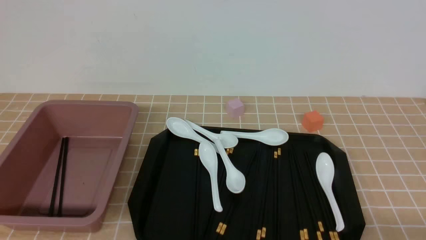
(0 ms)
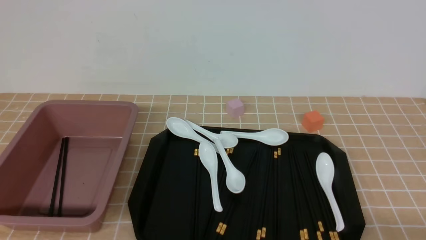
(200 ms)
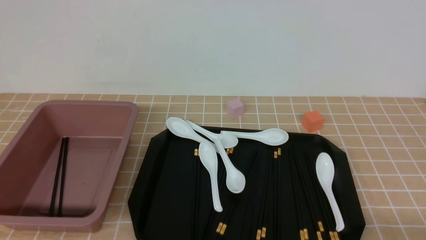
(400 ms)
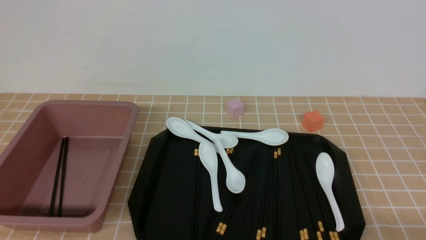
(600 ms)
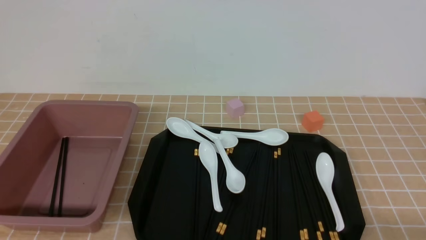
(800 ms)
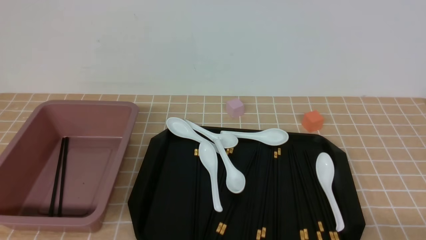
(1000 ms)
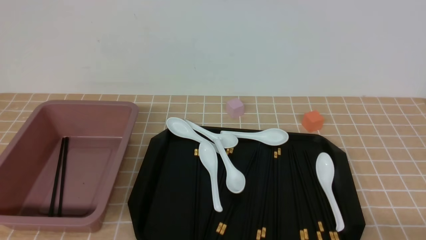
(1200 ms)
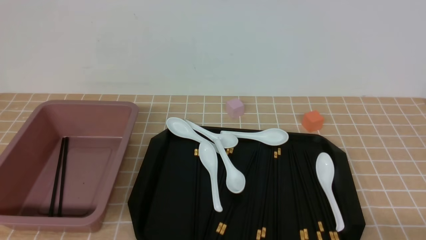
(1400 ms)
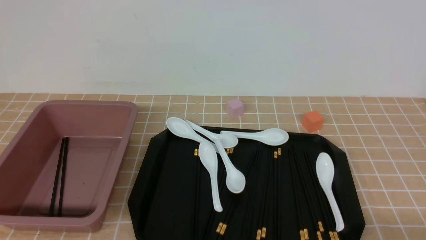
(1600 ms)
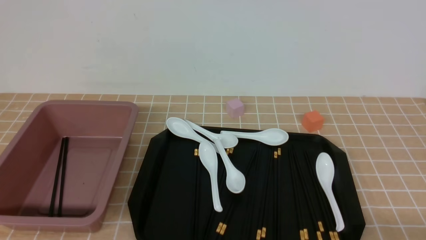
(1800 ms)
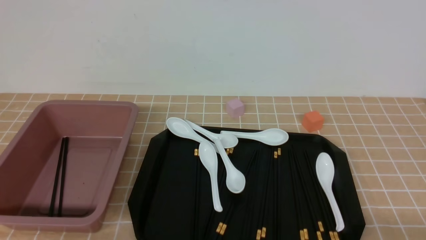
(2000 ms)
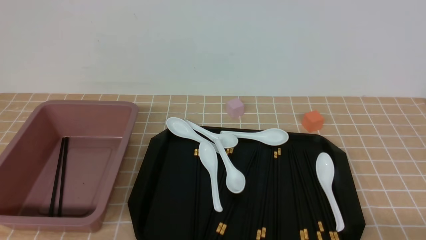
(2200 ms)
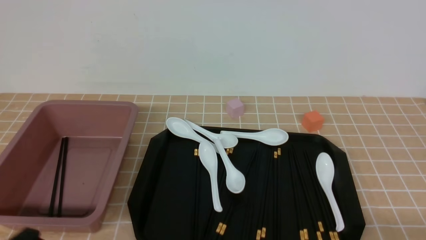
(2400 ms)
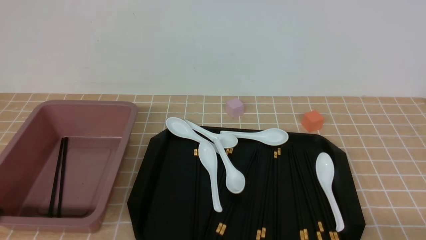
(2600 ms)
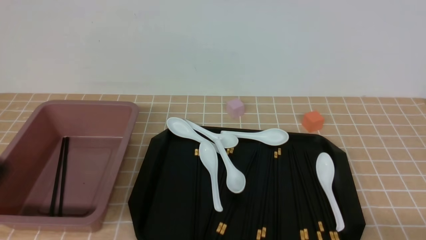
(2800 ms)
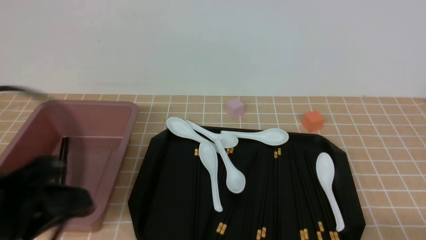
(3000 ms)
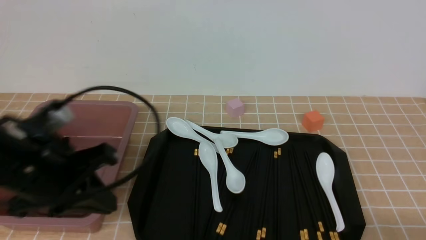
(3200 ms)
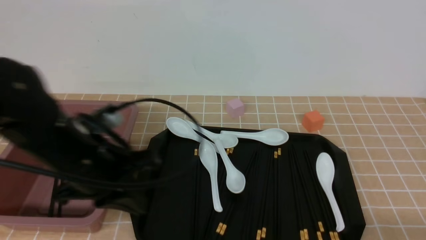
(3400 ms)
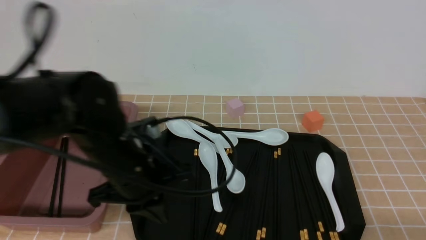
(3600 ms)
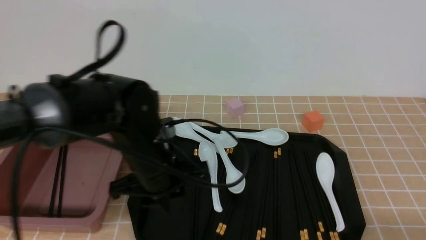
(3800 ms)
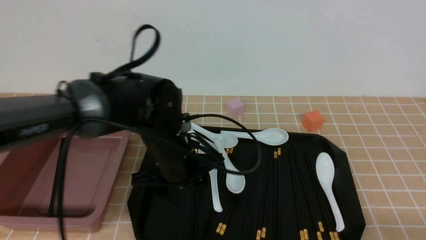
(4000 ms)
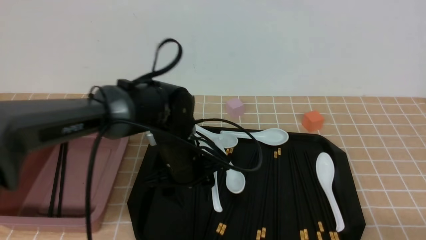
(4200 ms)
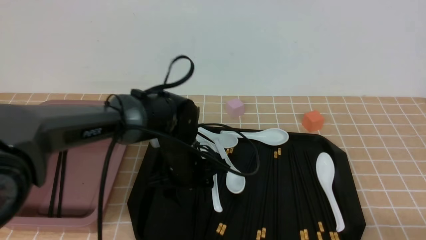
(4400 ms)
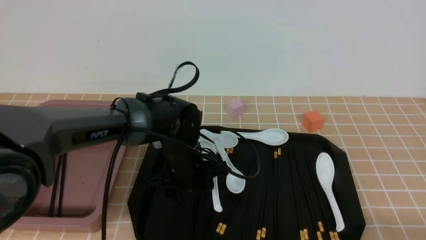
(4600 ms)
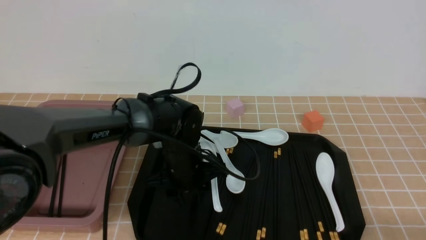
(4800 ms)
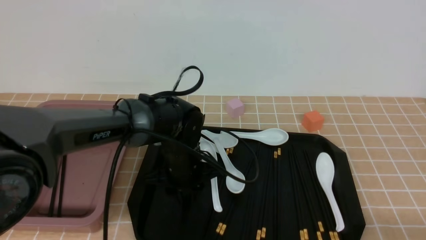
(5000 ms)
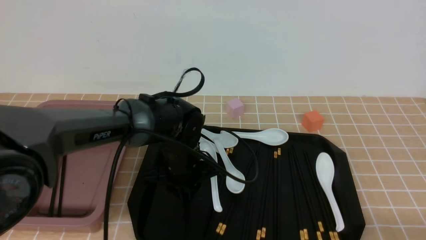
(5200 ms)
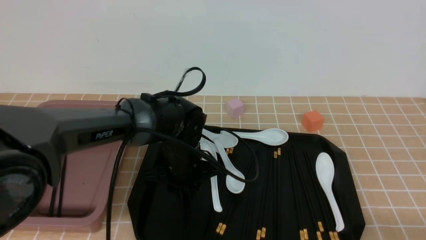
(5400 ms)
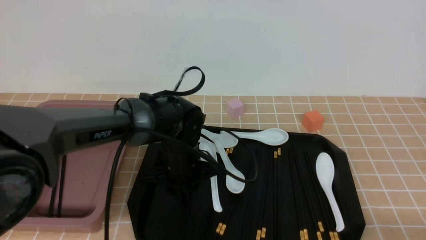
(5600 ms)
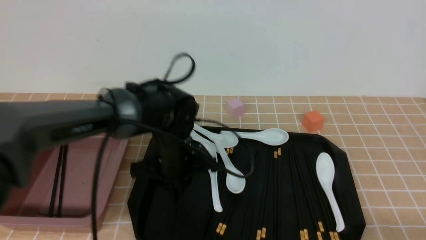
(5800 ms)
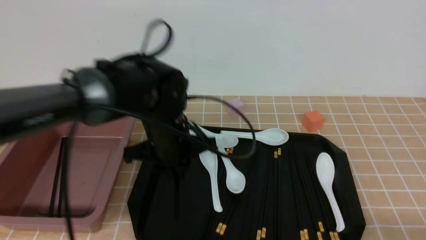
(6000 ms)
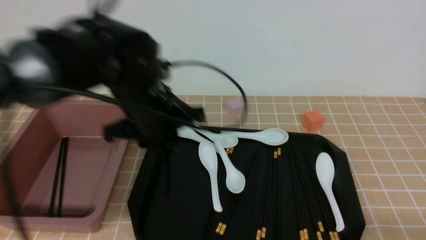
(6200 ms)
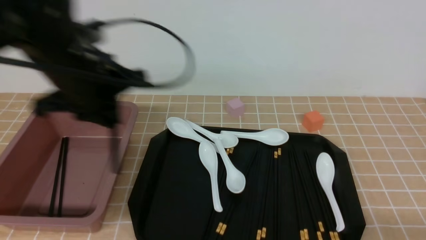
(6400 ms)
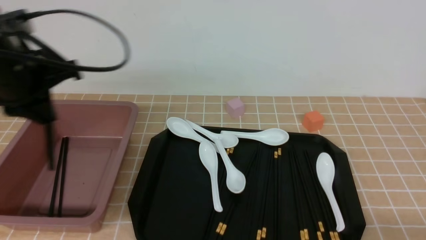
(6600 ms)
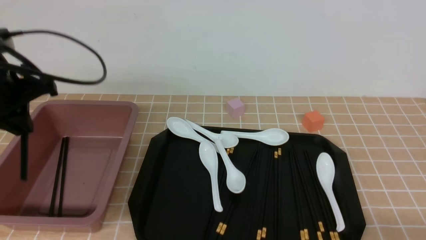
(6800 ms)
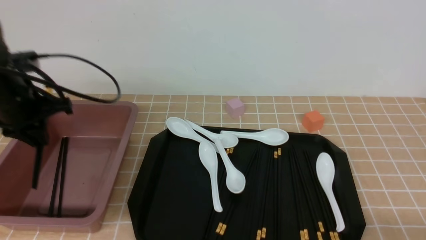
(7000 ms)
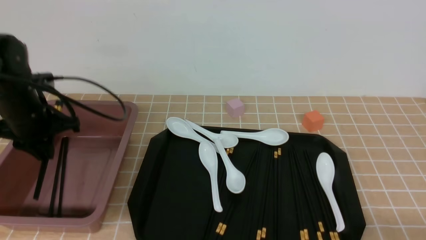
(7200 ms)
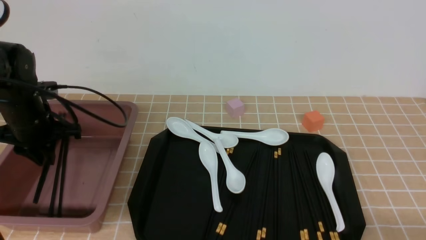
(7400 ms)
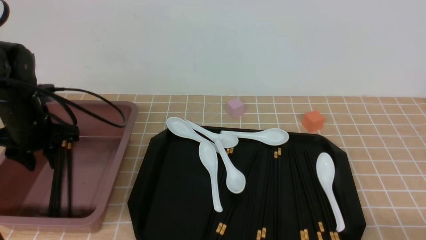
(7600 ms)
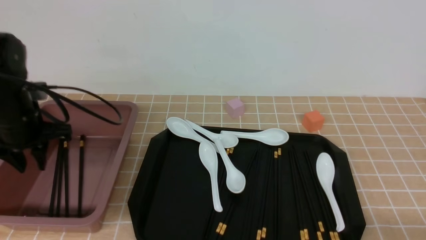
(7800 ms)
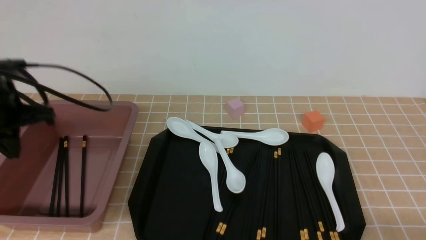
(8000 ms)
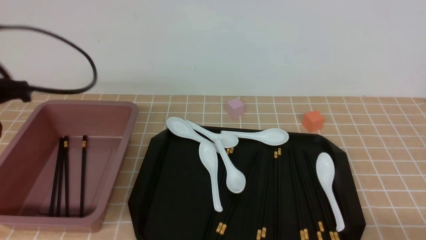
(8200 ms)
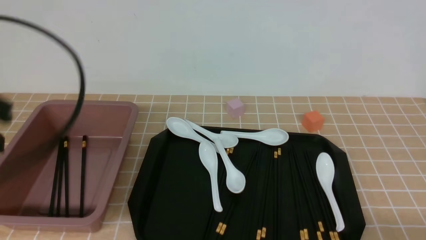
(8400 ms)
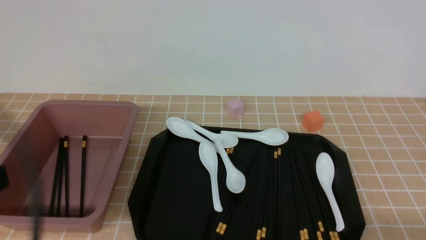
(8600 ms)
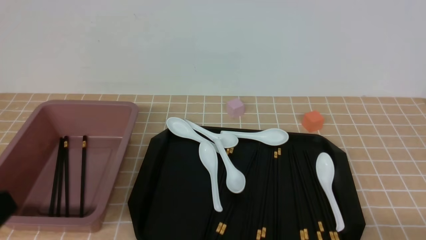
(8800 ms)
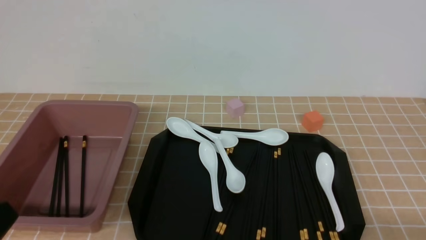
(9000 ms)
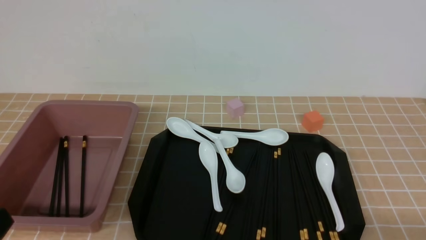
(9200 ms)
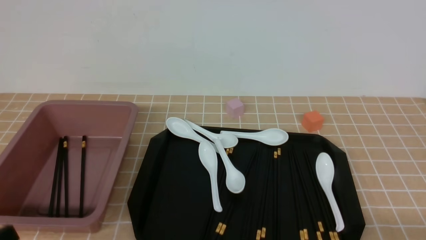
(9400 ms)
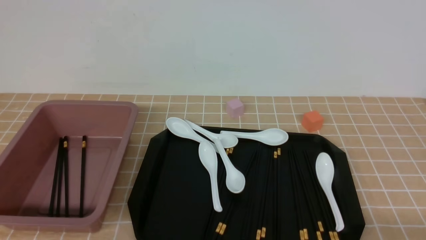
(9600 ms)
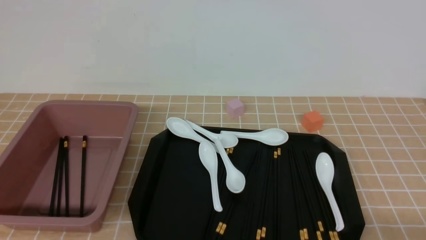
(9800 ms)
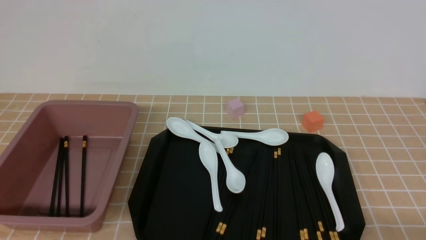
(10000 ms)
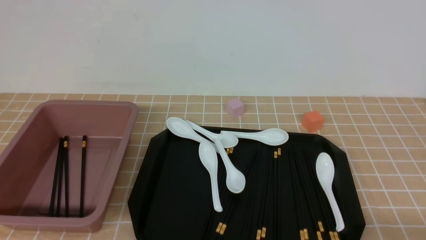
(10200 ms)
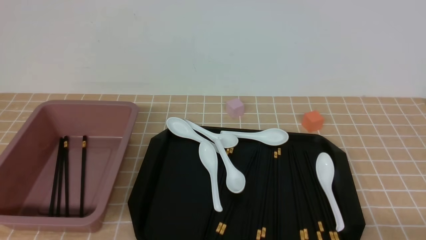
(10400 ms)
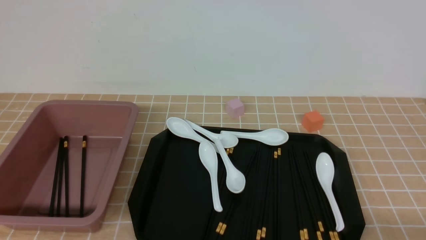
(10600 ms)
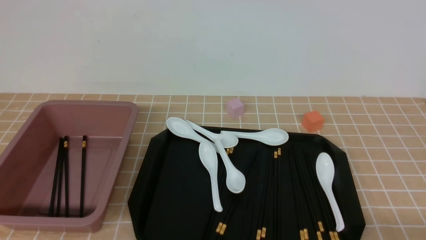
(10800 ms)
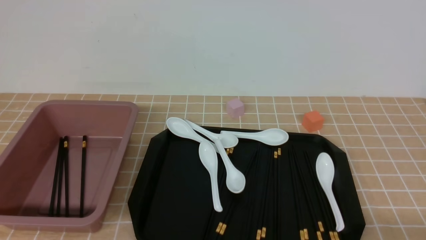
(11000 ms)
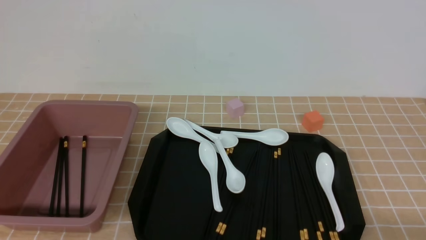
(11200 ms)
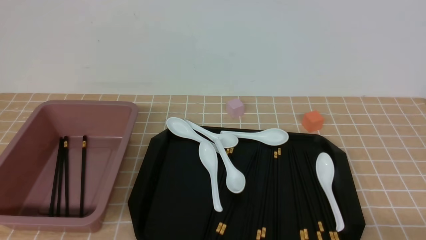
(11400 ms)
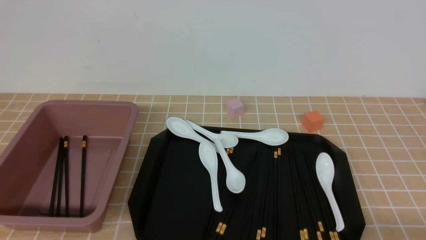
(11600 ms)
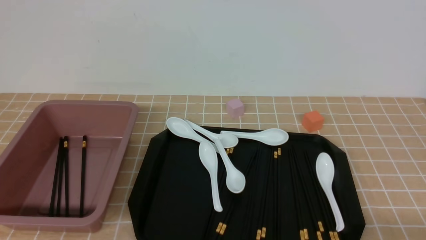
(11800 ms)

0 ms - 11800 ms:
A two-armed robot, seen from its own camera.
Step, 0 ms - 6000 ms: use the left arm to grab a pair of chopsticks.
Step, 6200 ms - 7800 ms: use the left arm to put the chopsticks into the lunch box.
0 ms - 1400 ms: Both grippers stay about where they are.
1400 ms - 3000 ms: The left gripper travels upward and forward by about 15 cm.
3000 ms - 4400 ms: The left gripper travels forward, to the right and downward by roughly 30 cm, and opens up.
4400 ms - 6000 ms: The left gripper travels upward by approximately 10 cm, and closes.
6000 ms - 7400 ms: The left gripper goes about 20 cm to the left.
7400 ms - 8800 ms: The left gripper goes some 30 cm backward, and closes.
10400 ms - 11800 ms: Both grippers stay about where they are.

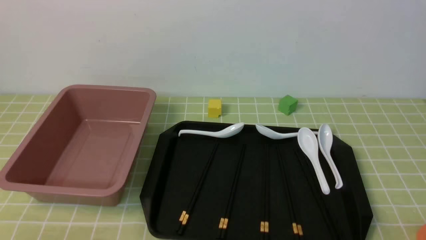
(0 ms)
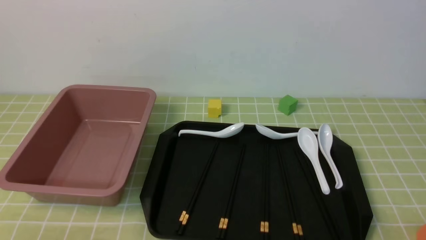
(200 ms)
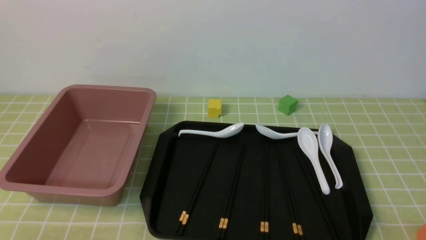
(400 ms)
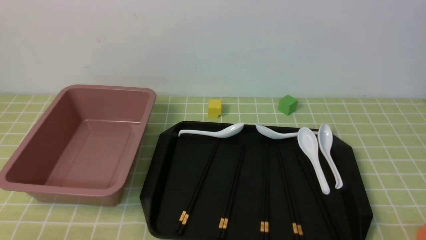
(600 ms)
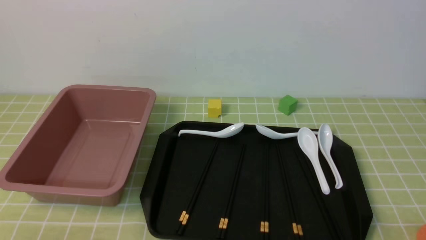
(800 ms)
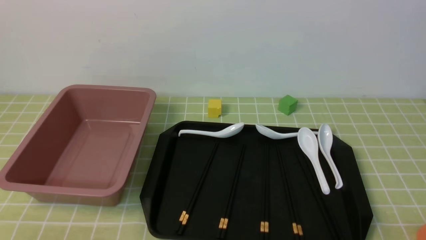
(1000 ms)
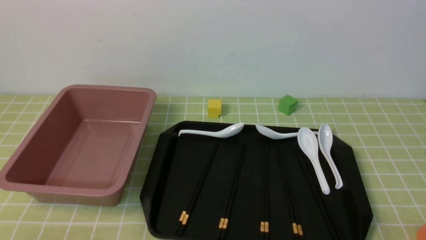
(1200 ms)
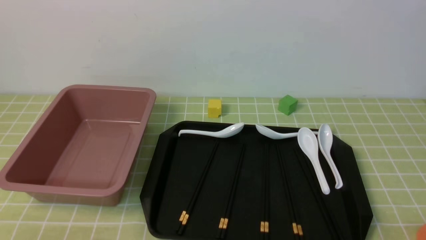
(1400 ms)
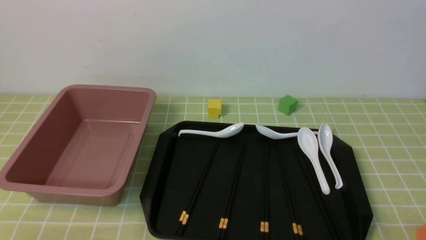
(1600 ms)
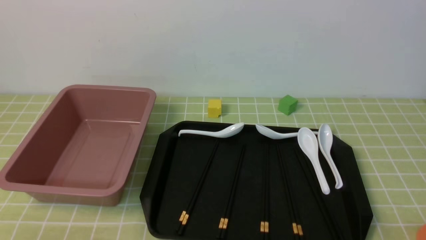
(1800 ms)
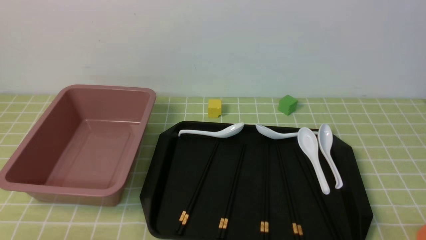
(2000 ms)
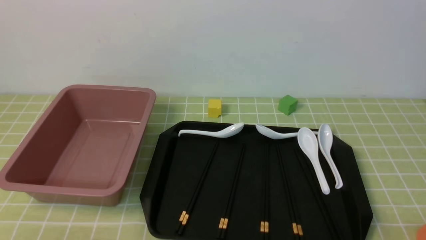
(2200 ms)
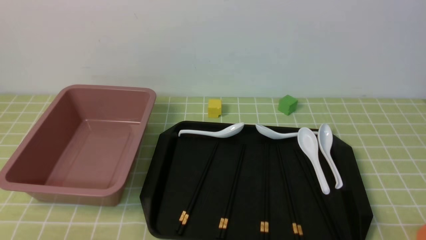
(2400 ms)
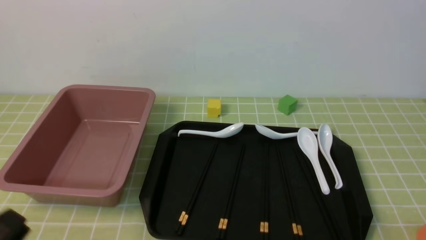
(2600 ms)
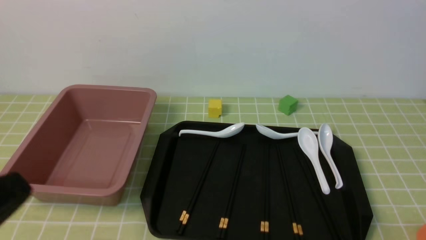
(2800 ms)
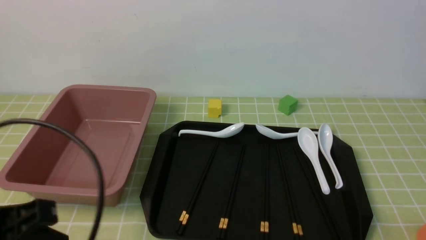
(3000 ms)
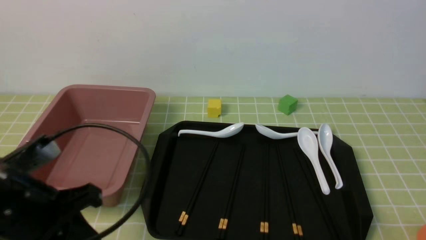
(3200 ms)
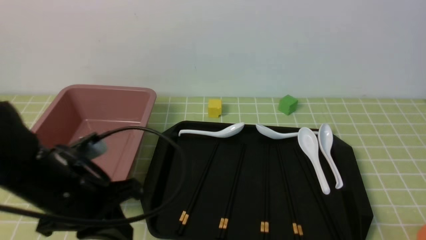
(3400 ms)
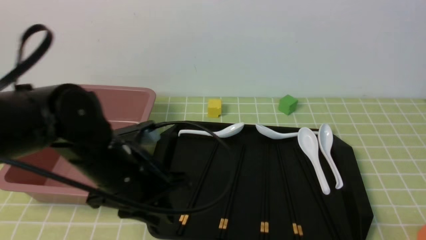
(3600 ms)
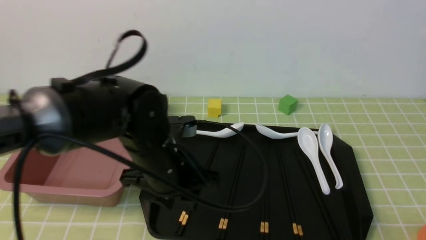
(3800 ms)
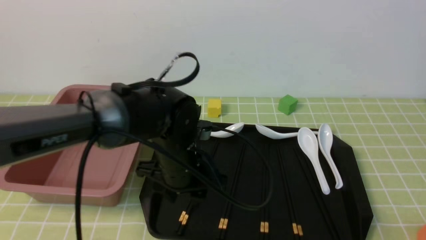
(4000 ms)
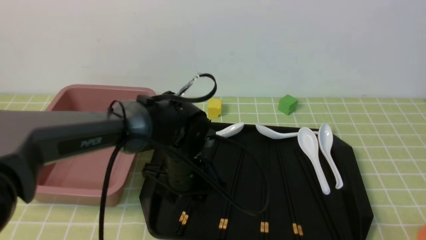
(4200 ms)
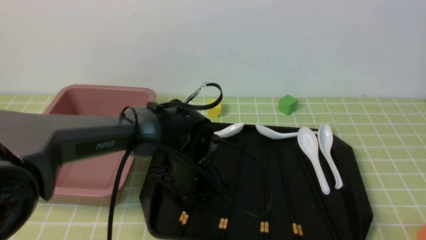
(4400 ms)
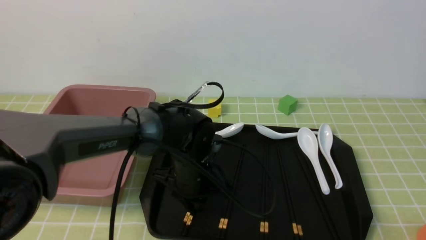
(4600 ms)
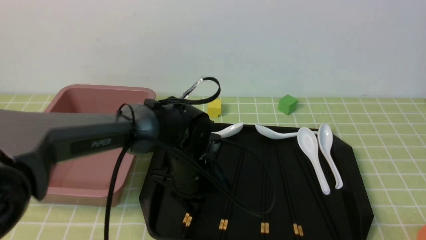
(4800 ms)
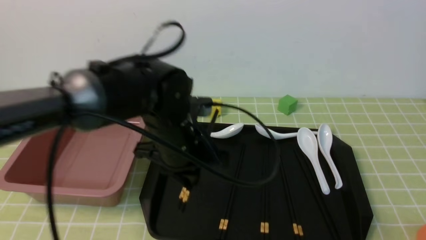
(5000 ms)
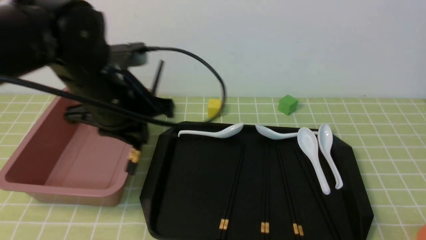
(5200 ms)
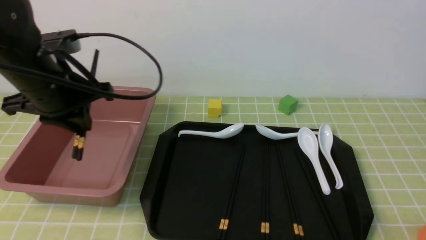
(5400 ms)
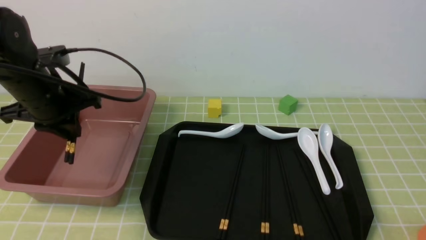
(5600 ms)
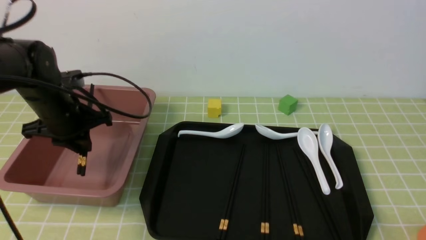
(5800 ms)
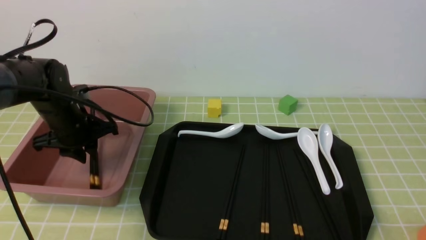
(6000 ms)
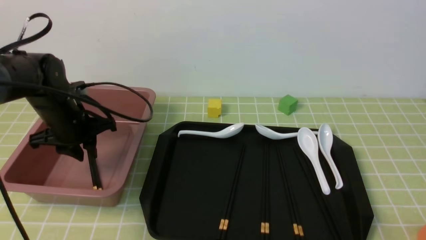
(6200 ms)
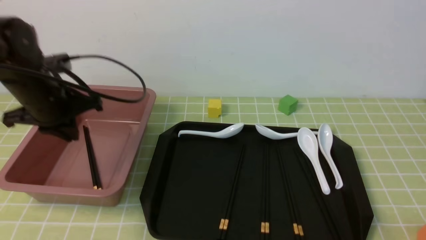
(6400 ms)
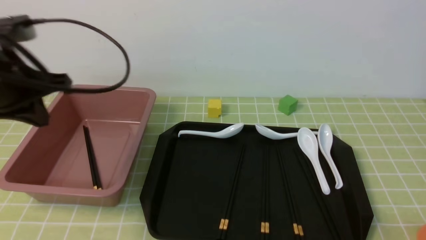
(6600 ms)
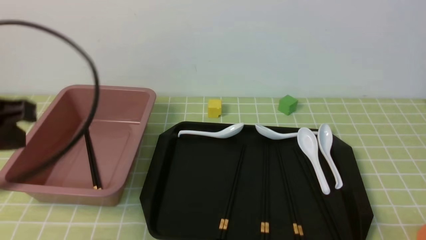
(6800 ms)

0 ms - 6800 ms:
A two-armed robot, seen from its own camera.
Step, 0 ms - 4800 ms: use the left arm to grab a pair of chopsticks.
Step, 5000 ms - 6200 ms: use the left arm to put the chopsticks into the lunch box.
0 ms - 1400 ms: The two grippers keep their place.
1400 ms - 2800 ms: The left gripper heads upward, covering about 15 cm, and closes.
2800 ms - 4000 ms: The left gripper is displaced forward, to the right and downward by some 30 cm, and opens.
4000 ms - 5400 ms: The left gripper moves to the left and upward, about 20 cm, and closes up.
5400 ms - 6800 ms: The left gripper travels backward by about 15 cm.
